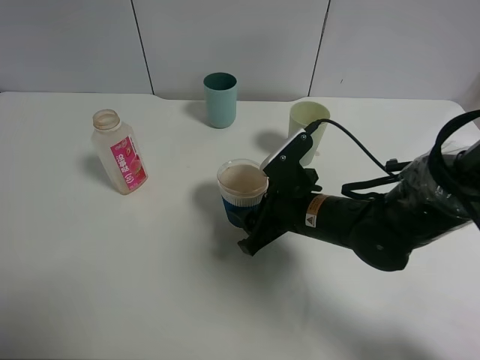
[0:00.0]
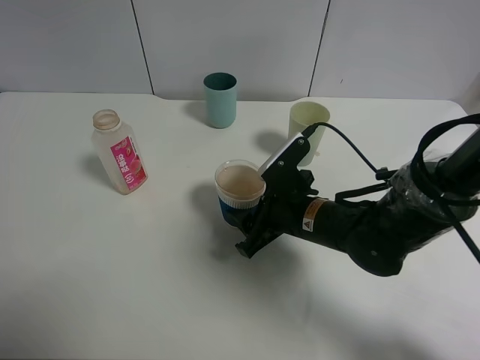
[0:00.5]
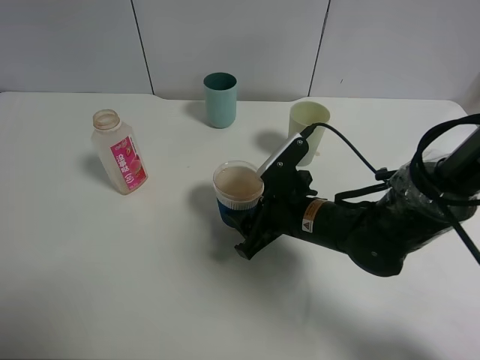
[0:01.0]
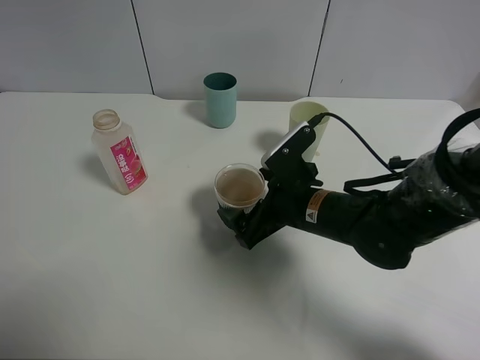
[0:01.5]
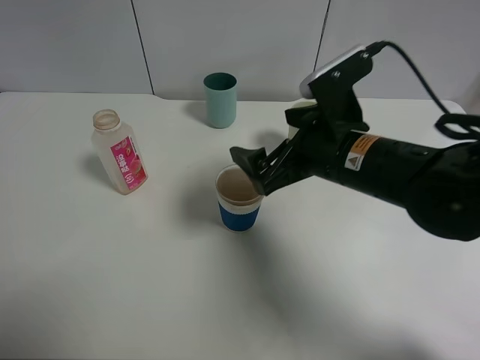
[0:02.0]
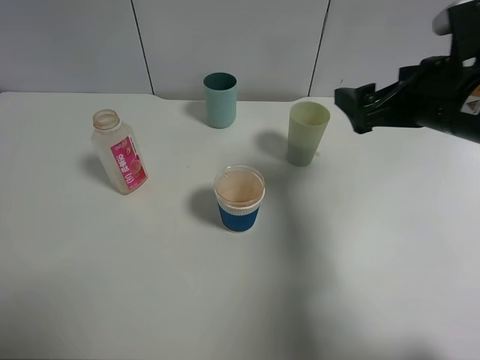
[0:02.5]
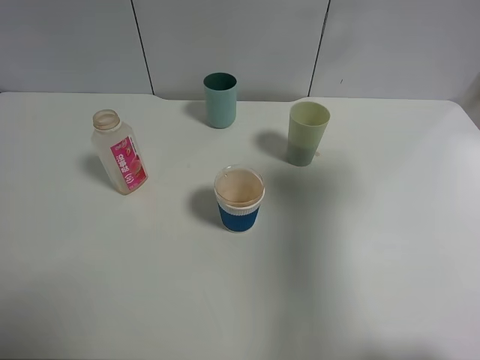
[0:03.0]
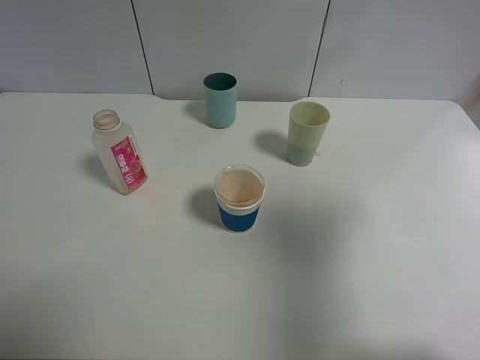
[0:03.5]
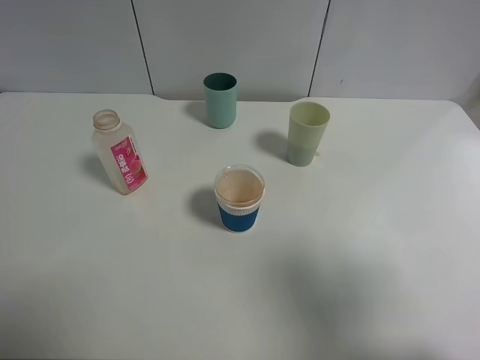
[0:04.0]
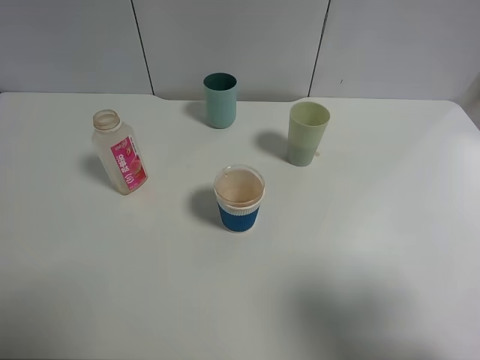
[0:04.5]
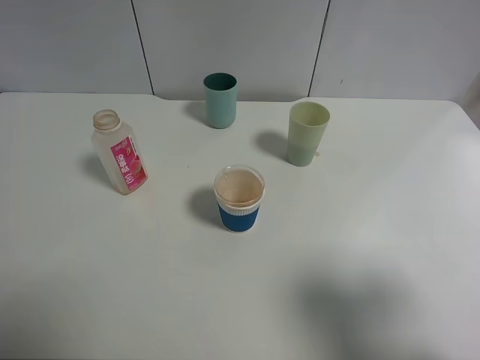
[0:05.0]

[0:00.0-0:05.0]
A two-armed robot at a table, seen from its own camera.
Task of the whole recording: use a clamp to hold the bottle of the drink, pour the beverage into a random cup, then clamp the cup containing the drink and pour the drink into another random cup.
0:00.0 to 0:02.5: The right gripper moves upward and to the right, approximately 20 cm, and opens up.
0:02.5 to 0:05.0: The right gripper moves backward, roughly 25 cm.
